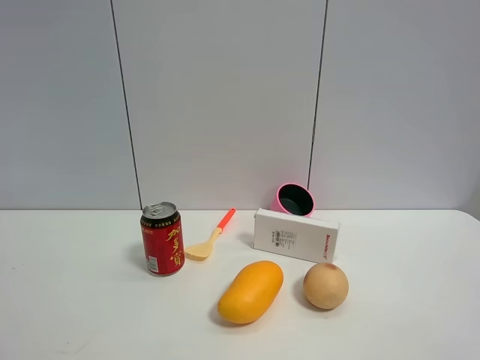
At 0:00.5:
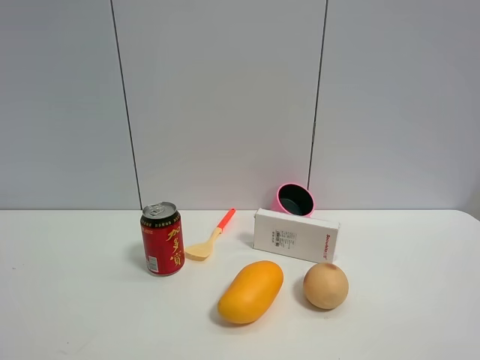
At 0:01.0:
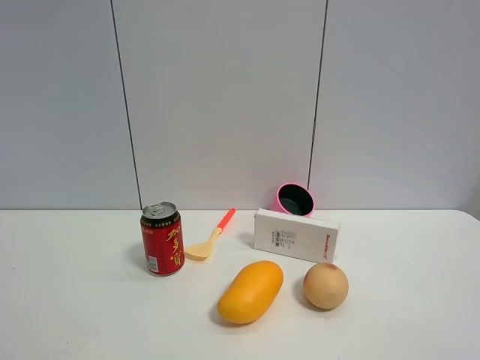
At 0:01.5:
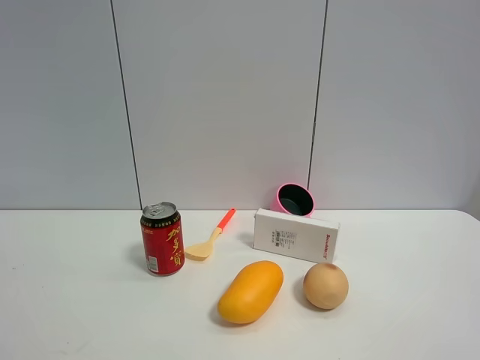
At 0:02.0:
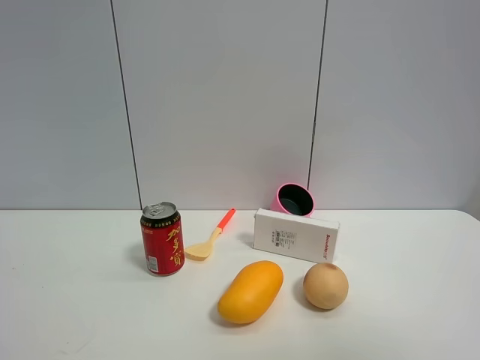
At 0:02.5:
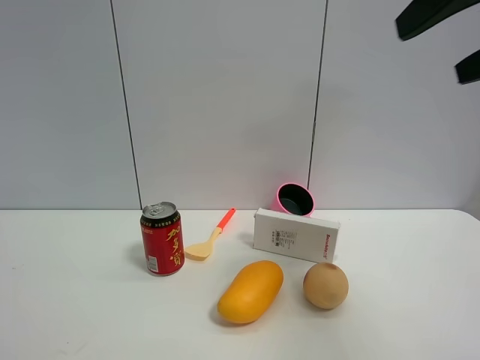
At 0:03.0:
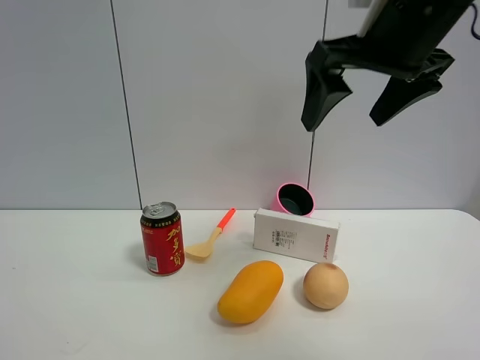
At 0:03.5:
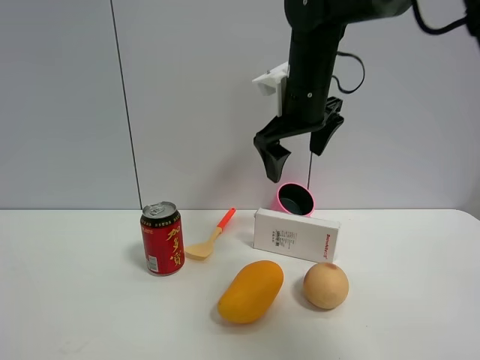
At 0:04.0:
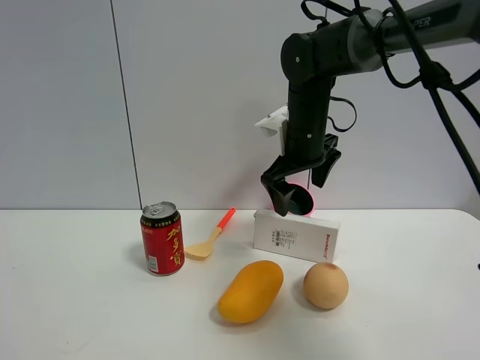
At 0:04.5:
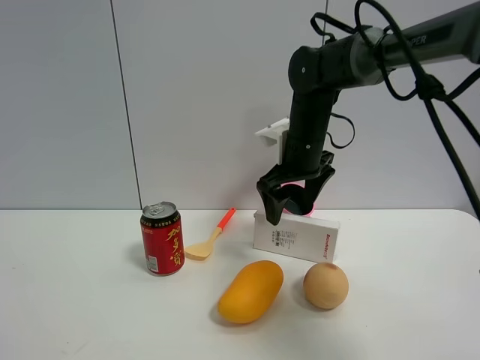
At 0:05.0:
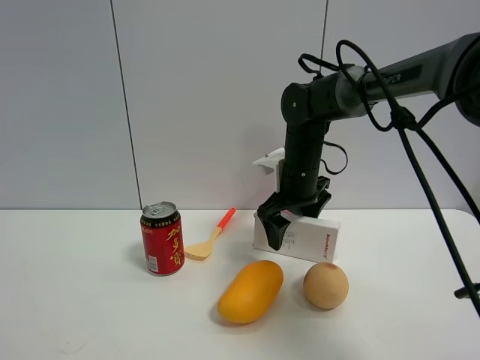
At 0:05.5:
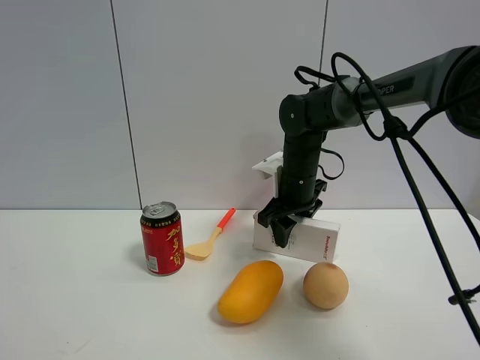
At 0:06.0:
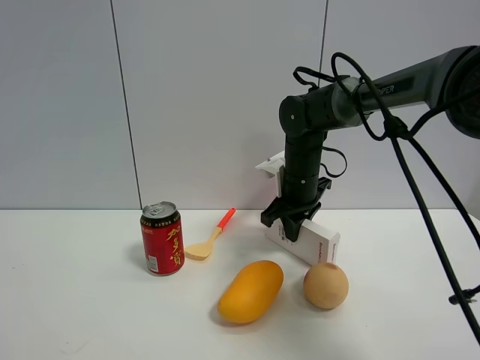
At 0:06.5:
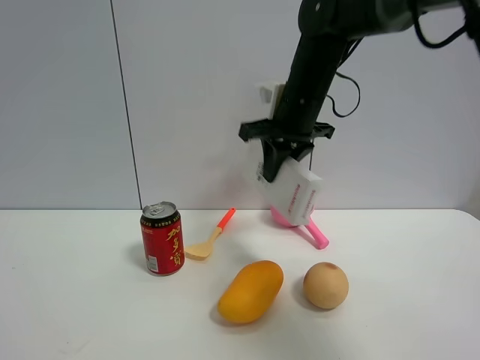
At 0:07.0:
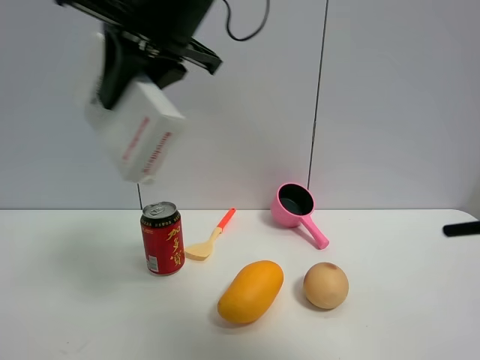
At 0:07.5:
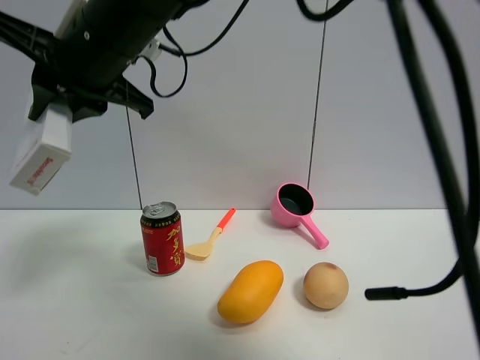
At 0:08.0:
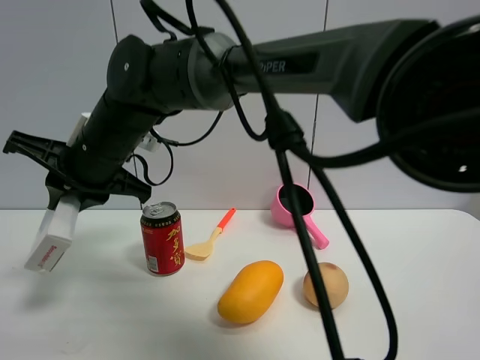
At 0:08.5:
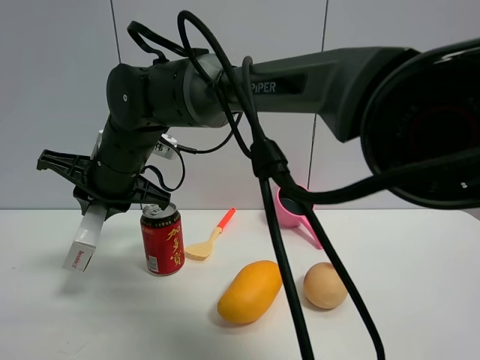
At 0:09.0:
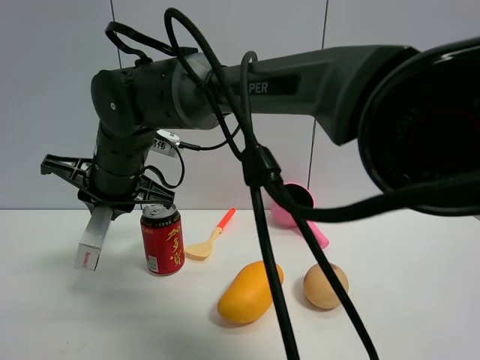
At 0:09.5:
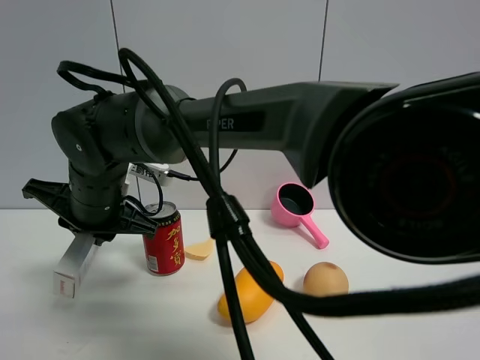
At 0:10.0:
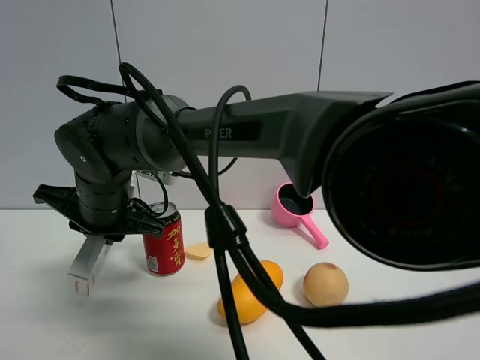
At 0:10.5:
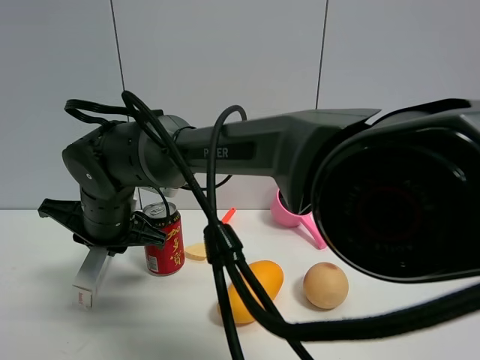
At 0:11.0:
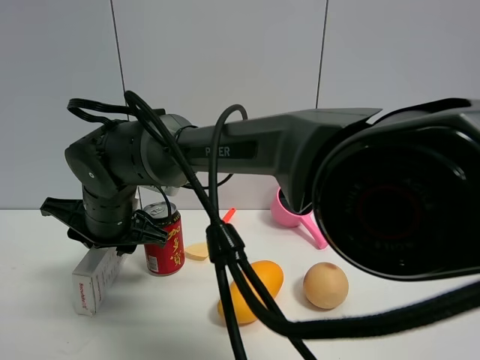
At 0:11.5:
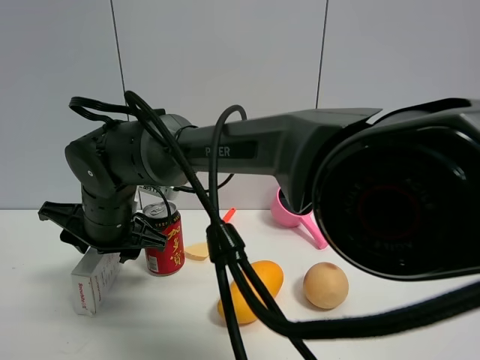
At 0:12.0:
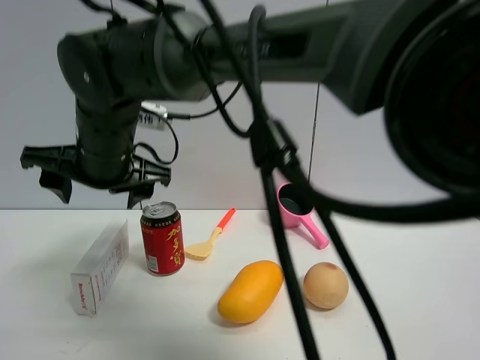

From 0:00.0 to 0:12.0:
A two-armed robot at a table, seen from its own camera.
Task of the whole recording: the gripper move the object.
Step, from 0:00.0 to 0:05.5: Grasp the USB box with the right gripper.
Step, from 0:06.0 to 0:11.5: Place the USB box on the table with the right gripper.
From 0:00.0 to 0:02.0: The right gripper travels upward by approximately 15 cm.
From 0:02.0 to 0:04.0: The right gripper goes roughly 50 cm forward, downward and to the left.
From 0:04.0 to 0:06.0: The right gripper goes roughly 10 cm downward, and closes its fingers.
From 0:06.0 to 0:08.0: The right gripper shifts approximately 30 cm to the left and backward.
From 0:08.0 to 0:10.0: The right gripper travels downward by roughly 5 cm.
From 0:10.0 to 0:12.0: The right gripper moves upward, approximately 10 cm, and opens its fingers.

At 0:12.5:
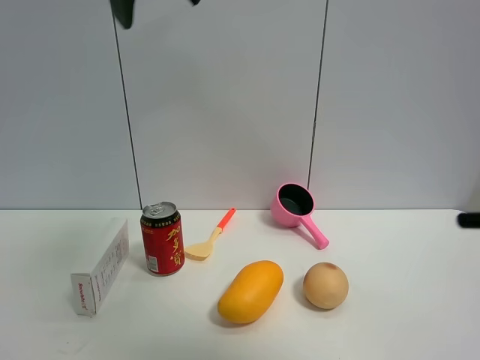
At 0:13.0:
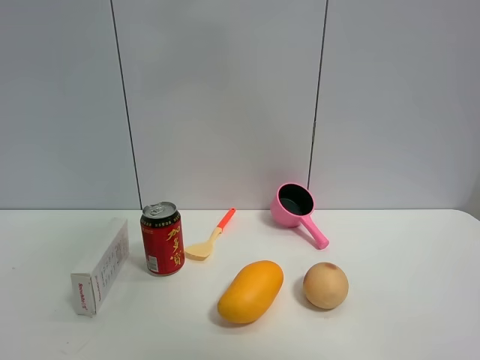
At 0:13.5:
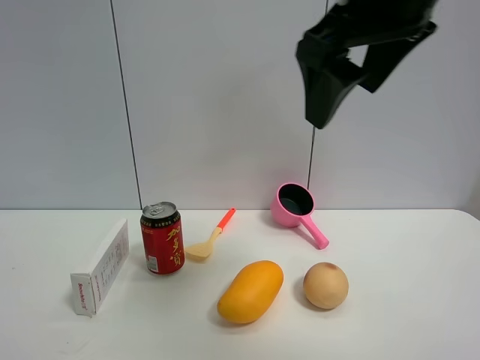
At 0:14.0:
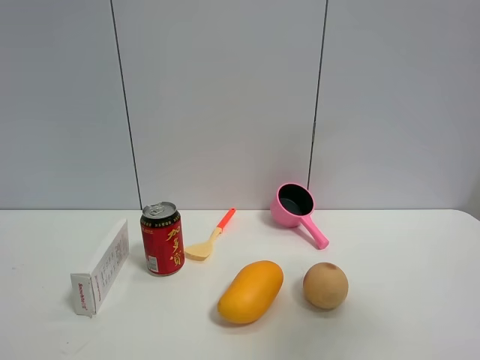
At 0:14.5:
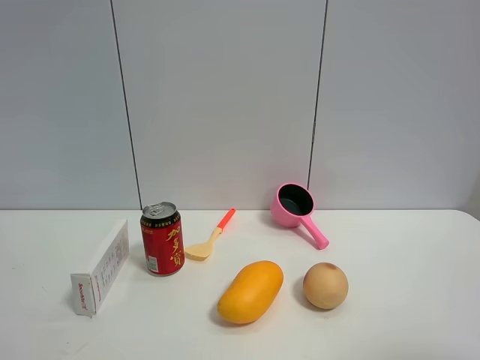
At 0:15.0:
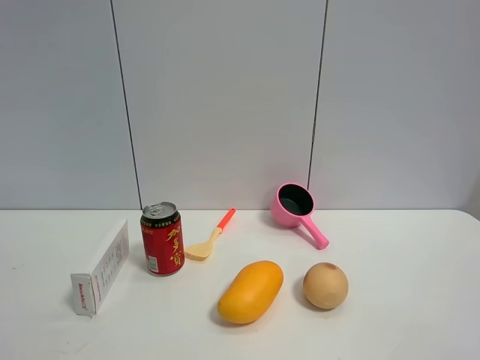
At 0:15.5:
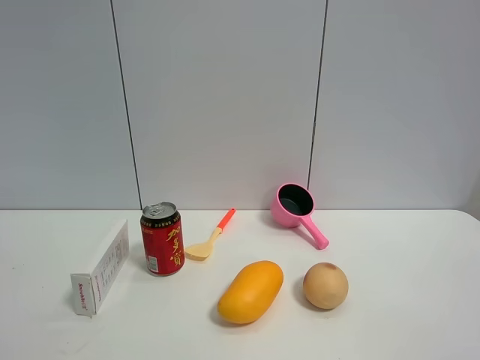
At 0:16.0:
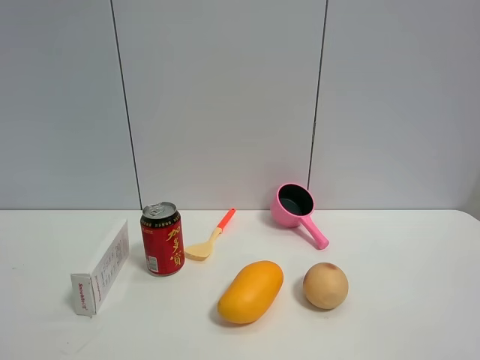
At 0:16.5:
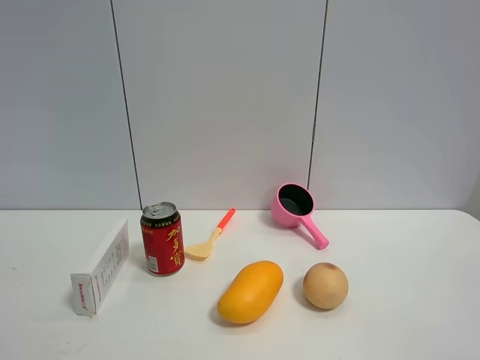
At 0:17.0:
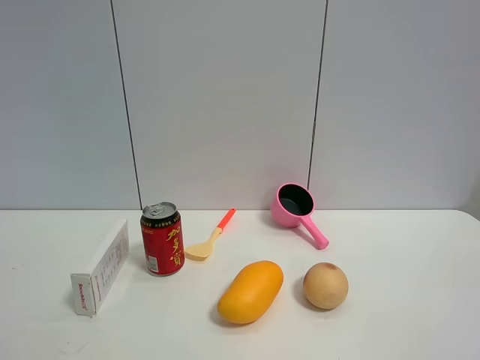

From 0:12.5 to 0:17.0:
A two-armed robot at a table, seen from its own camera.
Task of the whole recording: the gripper move the object.
From 0:12.5 to 0:14.5: The right gripper shifts about 40 cm to the right, backward and downward.

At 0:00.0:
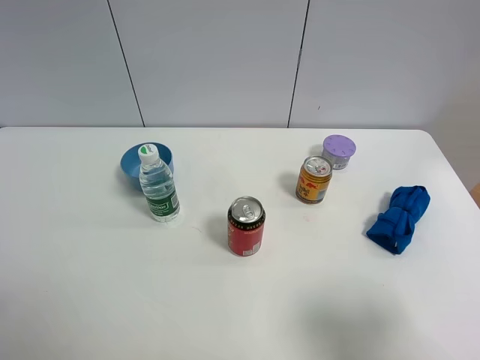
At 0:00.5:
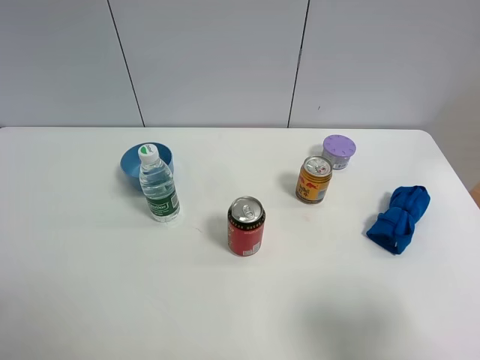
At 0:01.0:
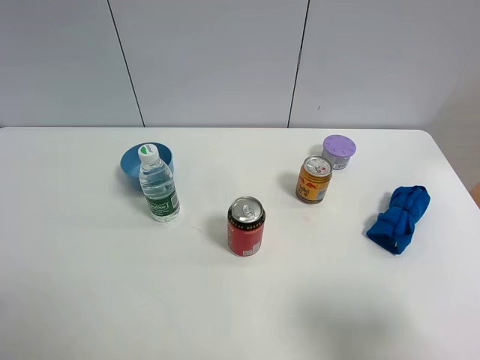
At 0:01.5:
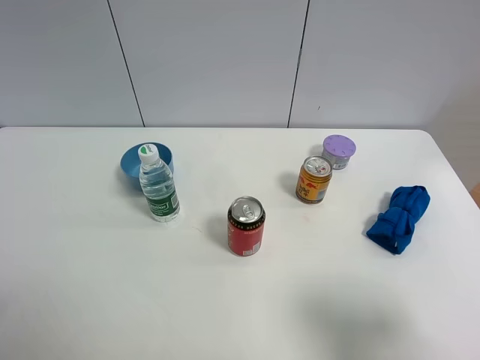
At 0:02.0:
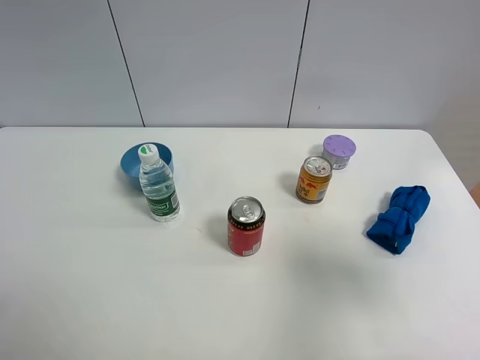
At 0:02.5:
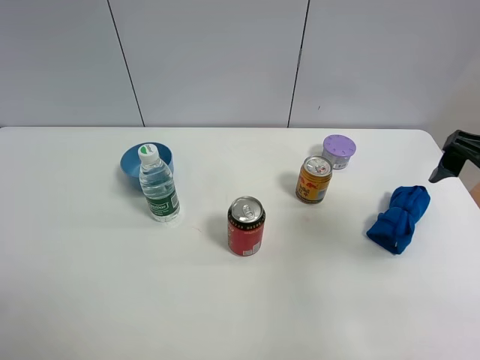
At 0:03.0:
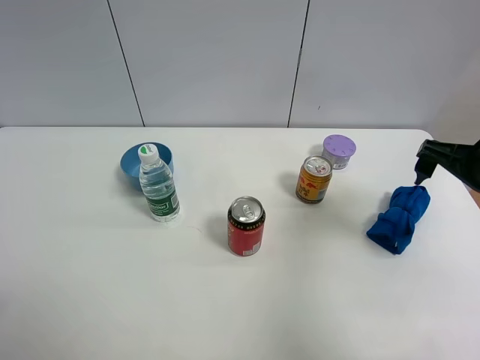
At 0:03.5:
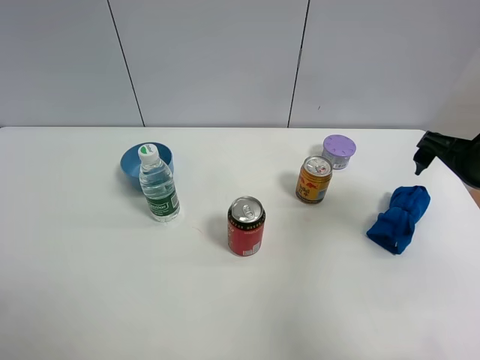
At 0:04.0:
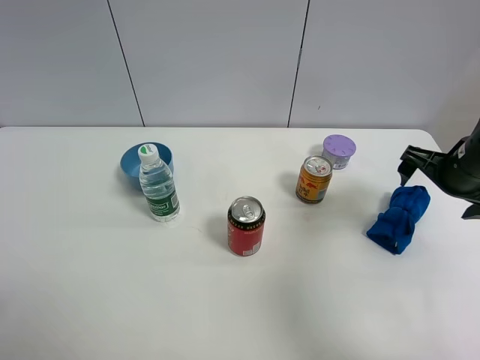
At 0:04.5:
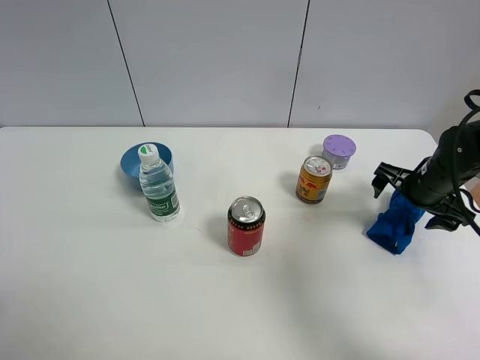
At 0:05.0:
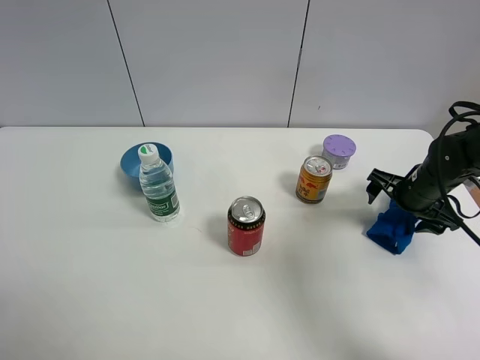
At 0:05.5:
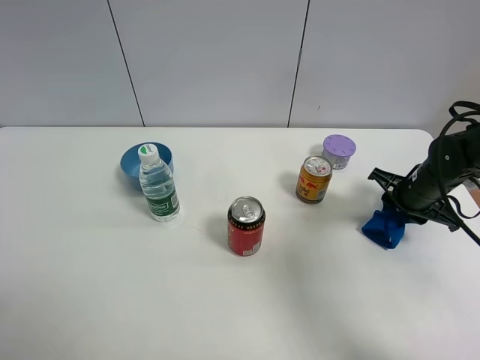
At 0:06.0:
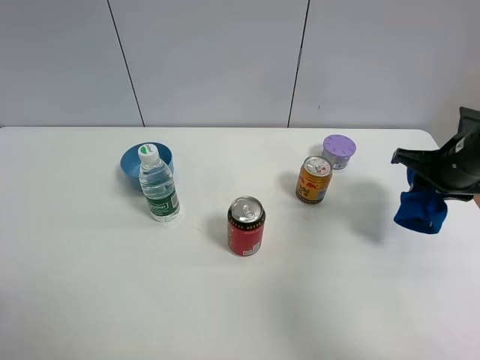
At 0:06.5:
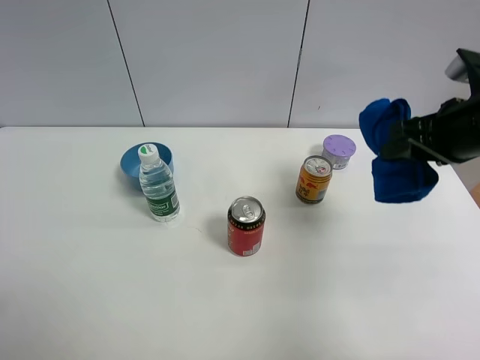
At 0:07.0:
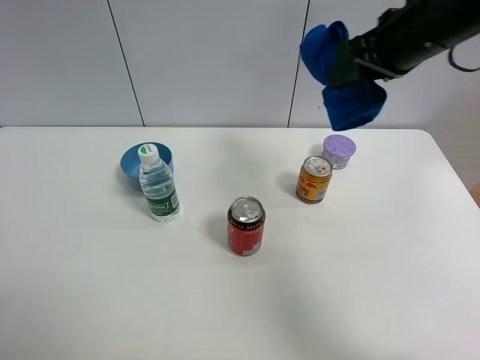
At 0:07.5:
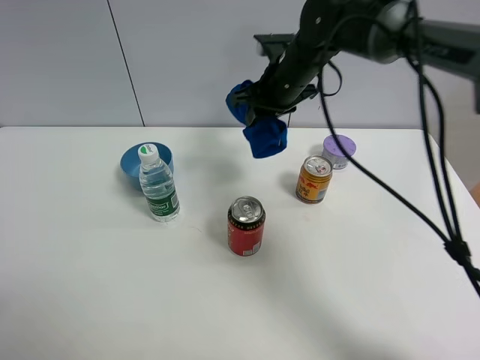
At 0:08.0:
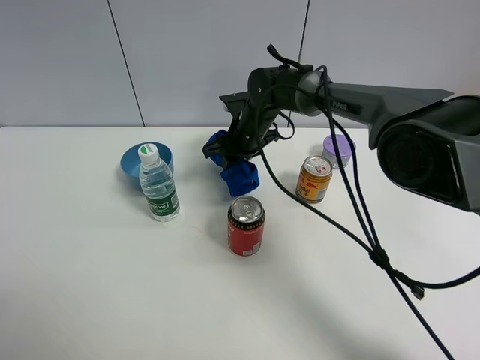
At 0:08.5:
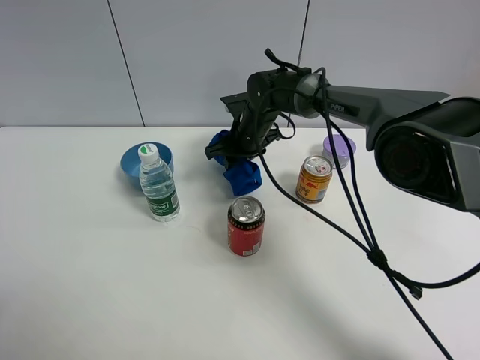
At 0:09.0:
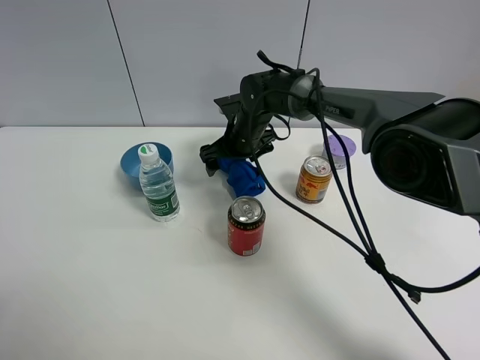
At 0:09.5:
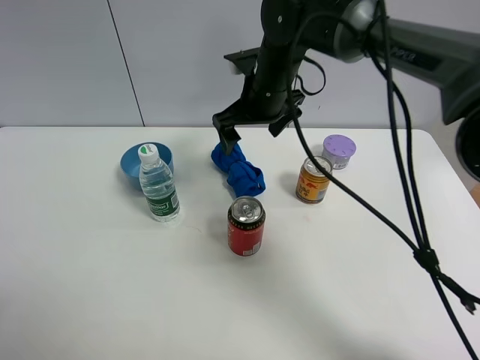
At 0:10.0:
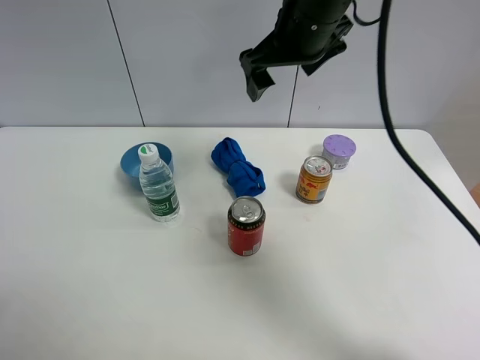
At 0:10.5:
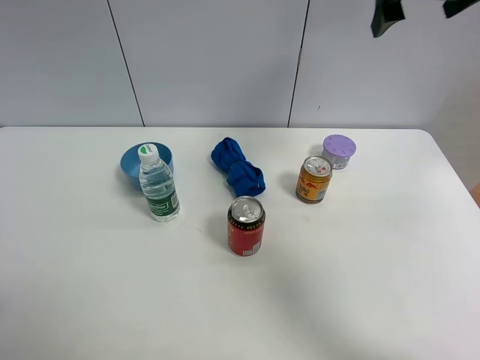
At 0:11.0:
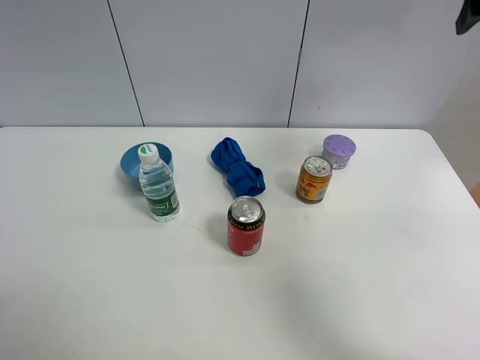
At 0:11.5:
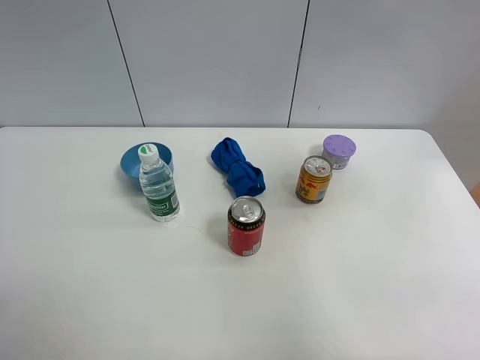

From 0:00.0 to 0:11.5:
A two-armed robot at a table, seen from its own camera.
Task of the whole recording: the gripper move the object.
Step, from 0:00.0 to 0:05.0: Grasp the blue towel with the right gripper.
Step, from 0:05.5 to 0:09.0: Place the blue towel on the table with the right gripper.
From 0:00.0 to 0:02.0: The right gripper goes about 10 cm forward and upward.
From 0:02.0 to 0:04.0: The right gripper goes some 25 cm forward and downward.
From 0:04.0 to 0:06.0: The right gripper moves about 10 cm downward and comes back, and closes its fingers.
From 0:06.0 to 0:07.5: The right gripper is displaced to the left and forward by approximately 30 cm.
From 0:07.5 to 0:09.5: The right gripper reaches about 10 cm downward, then returns, and opens its fingers.
From 0:09.5 to 0:11.5: The right gripper shifts roughly 40 cm to the right, upward and backward.
